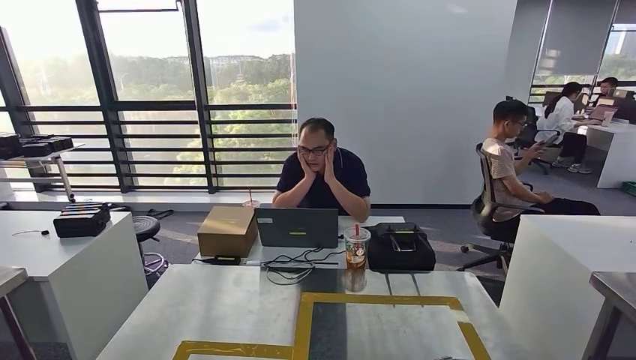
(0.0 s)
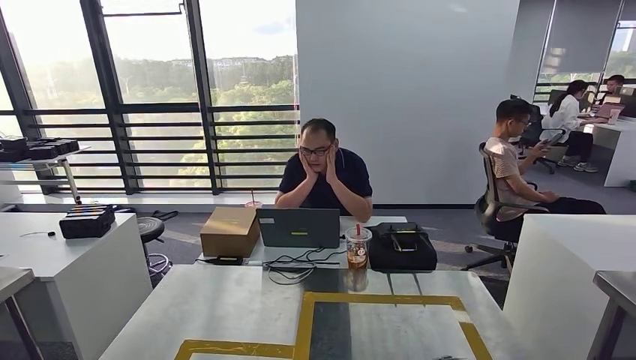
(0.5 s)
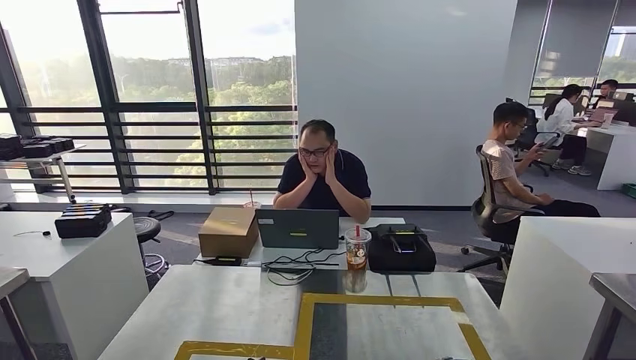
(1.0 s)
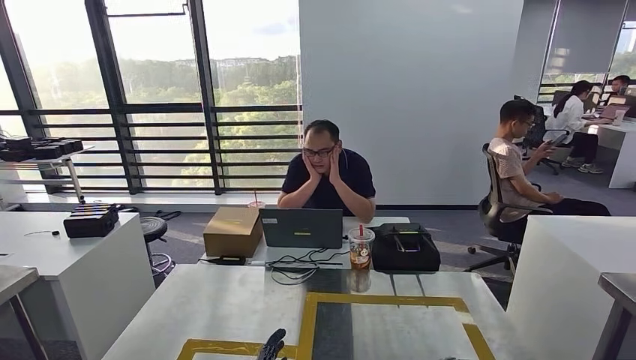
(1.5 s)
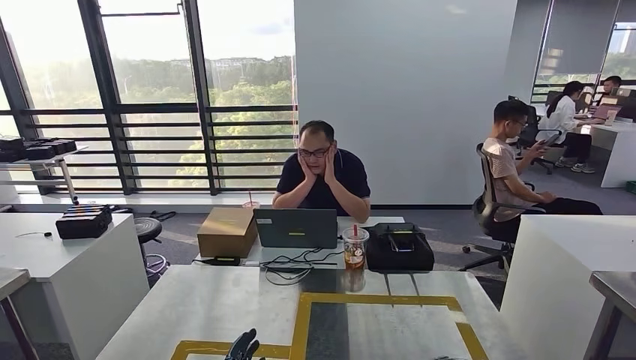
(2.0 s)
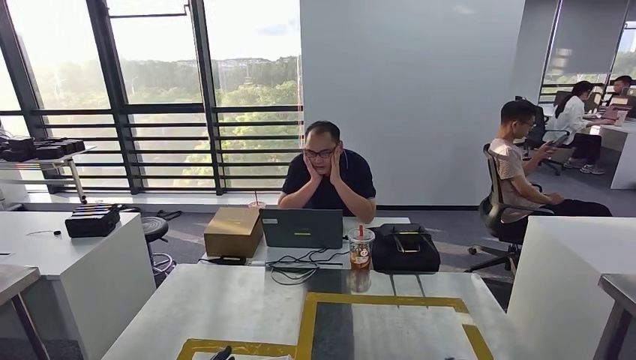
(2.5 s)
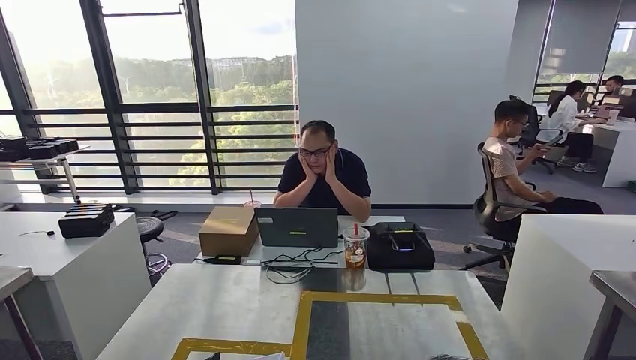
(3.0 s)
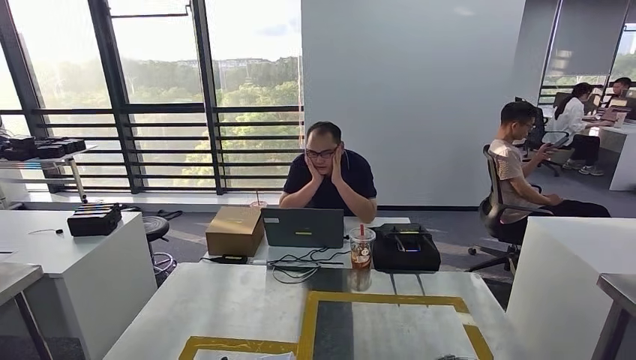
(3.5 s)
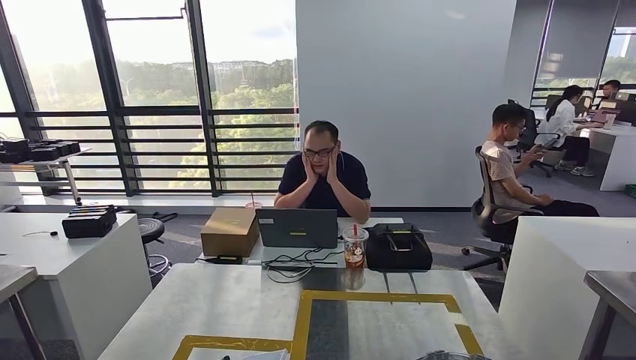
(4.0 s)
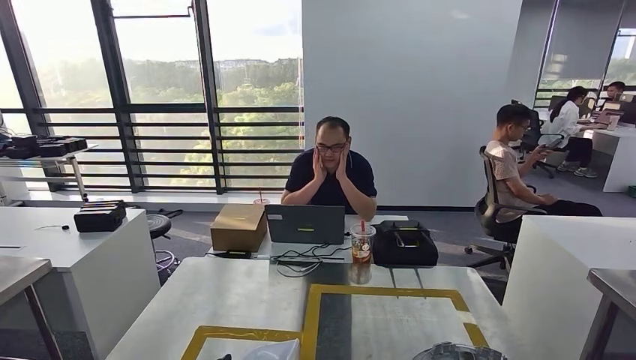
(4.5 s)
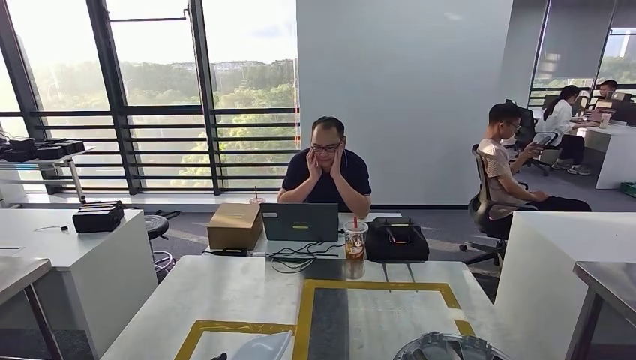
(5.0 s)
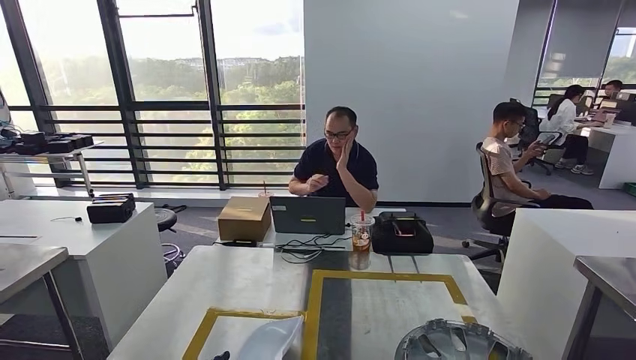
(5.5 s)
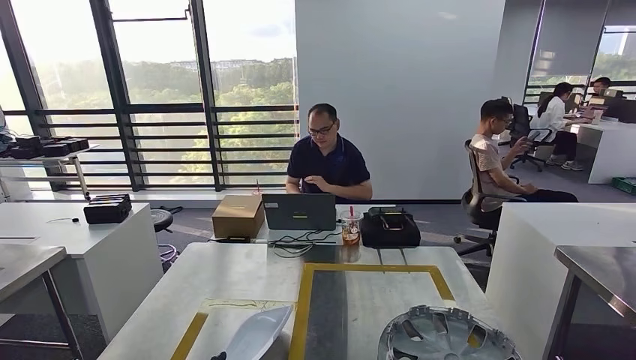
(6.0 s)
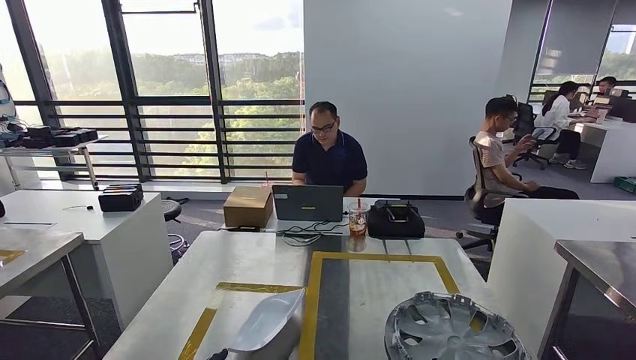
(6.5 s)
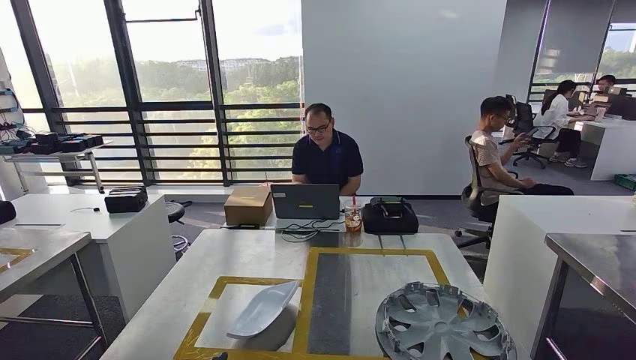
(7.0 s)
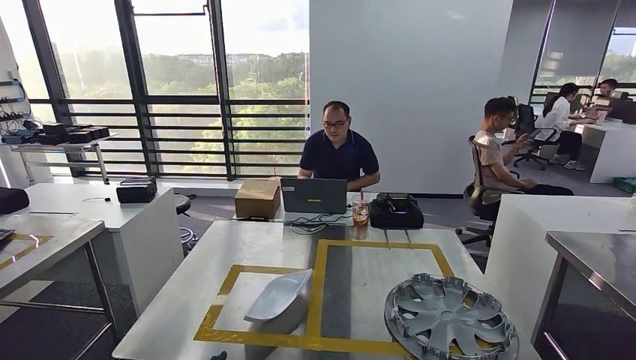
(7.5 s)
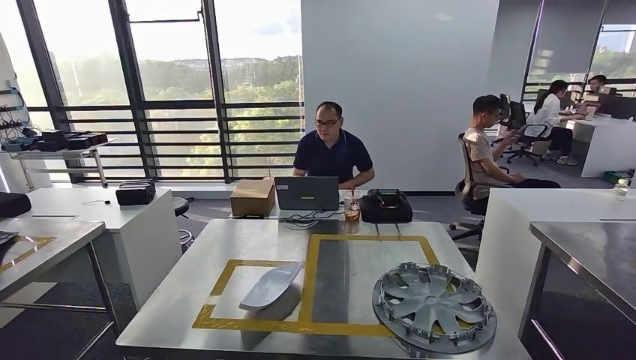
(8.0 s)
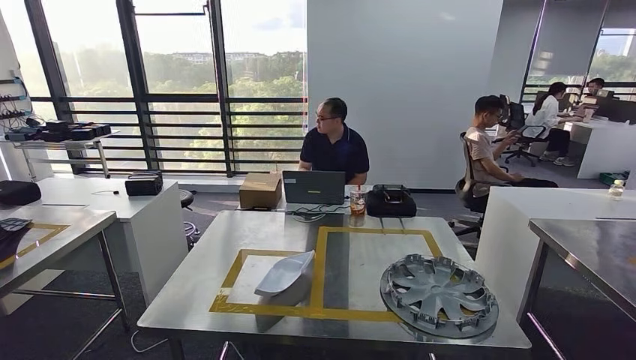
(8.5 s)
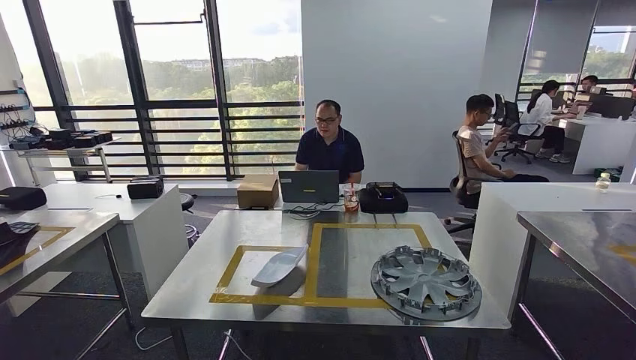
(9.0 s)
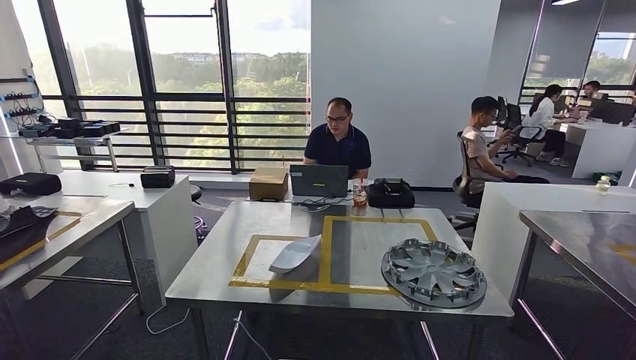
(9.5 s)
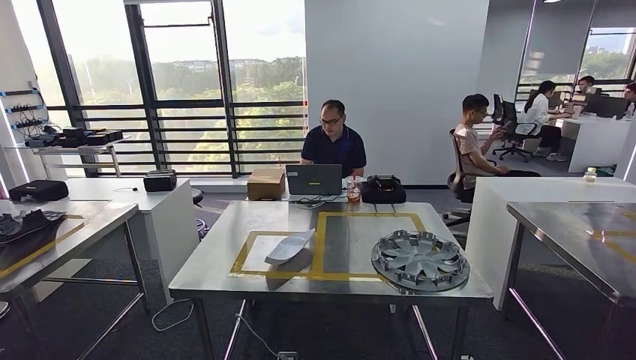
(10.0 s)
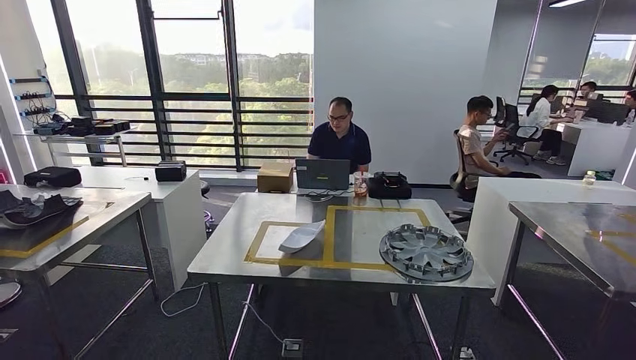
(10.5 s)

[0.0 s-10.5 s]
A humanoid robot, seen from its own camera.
Step, 0.0 to 4.0 s: Insert the small parts into the corresponding slots on the workbench.
0.0 to 2.0 s: The left hand goes some 15 cm upward, backward and to the right. The right hand ends up about 5 cm from where it was.
2.0 to 4.0 s: The left hand is displaced to the left by approximately 5 cm.

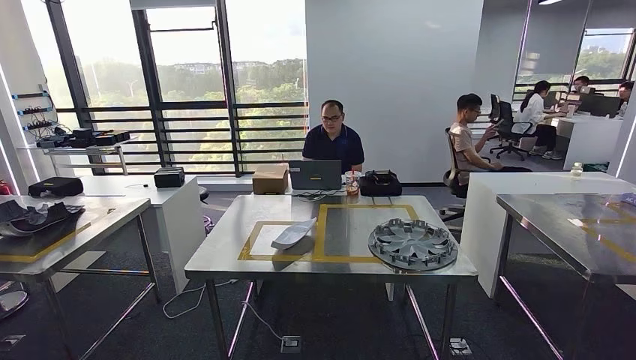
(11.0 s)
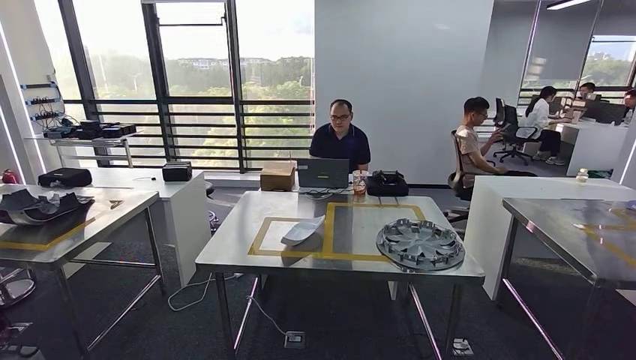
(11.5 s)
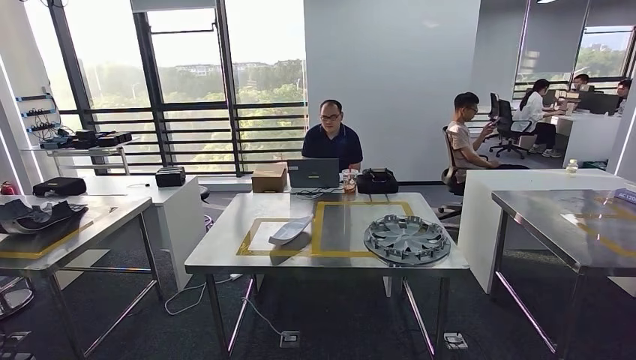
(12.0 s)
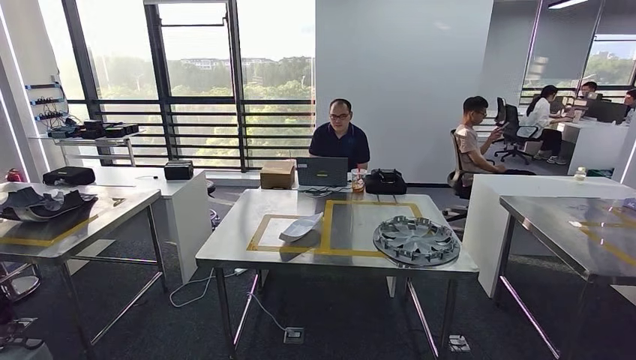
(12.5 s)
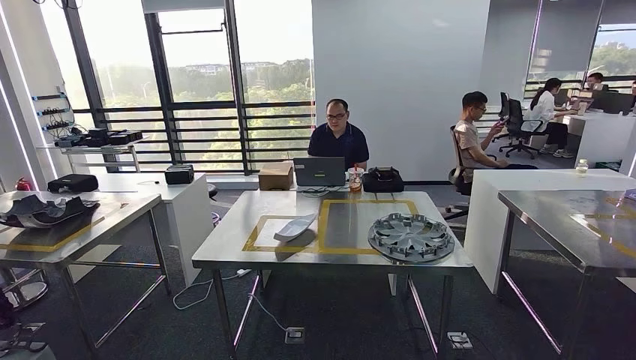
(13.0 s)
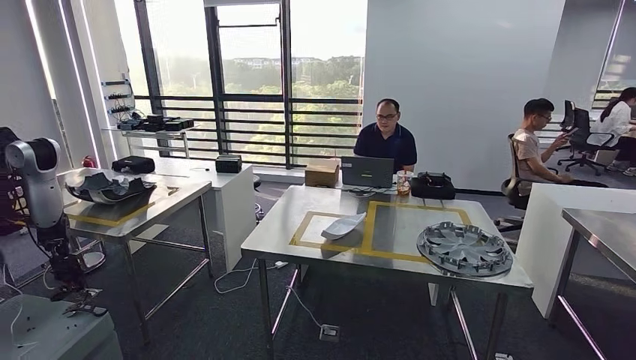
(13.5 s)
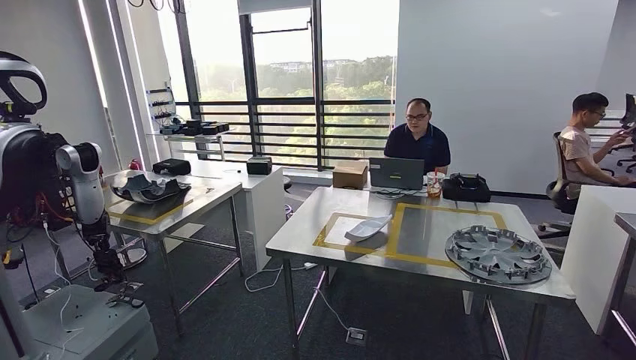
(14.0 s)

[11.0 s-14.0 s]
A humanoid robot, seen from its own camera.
Step, 11.0 to 14.0 s: Return to the initial position at the workbench.

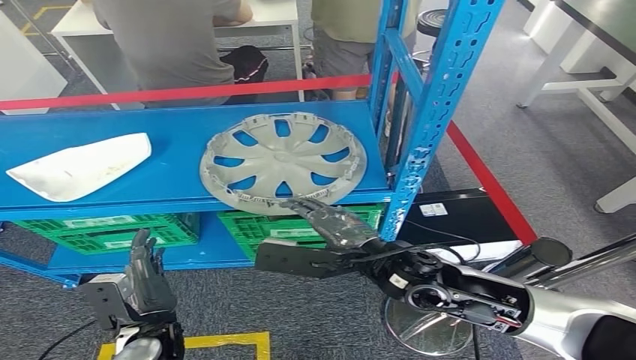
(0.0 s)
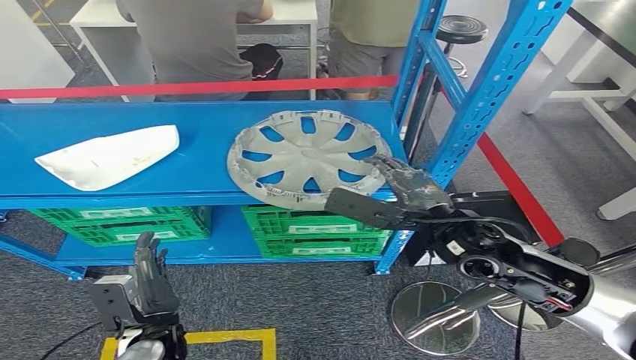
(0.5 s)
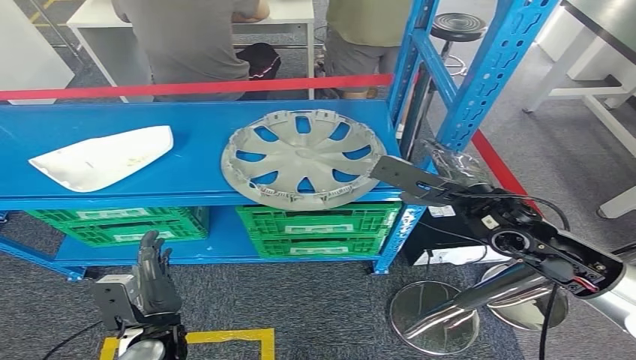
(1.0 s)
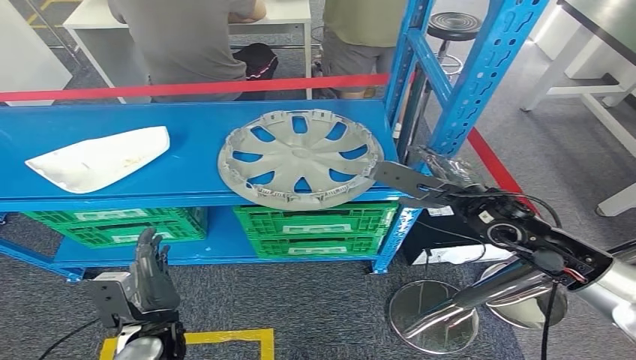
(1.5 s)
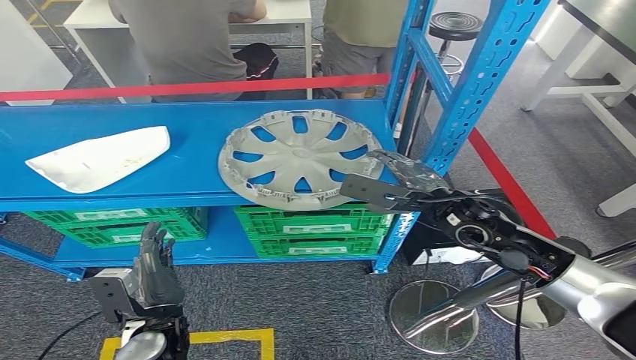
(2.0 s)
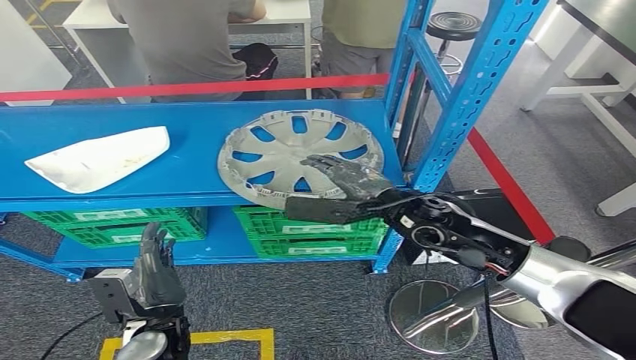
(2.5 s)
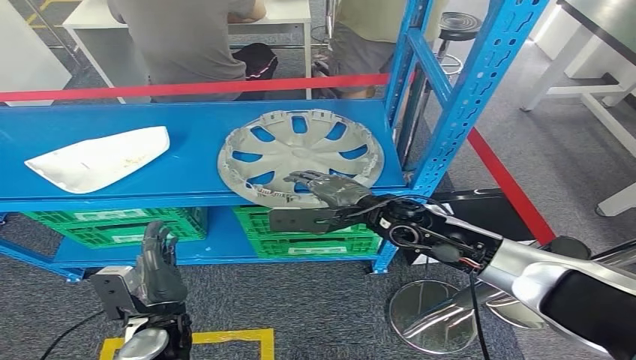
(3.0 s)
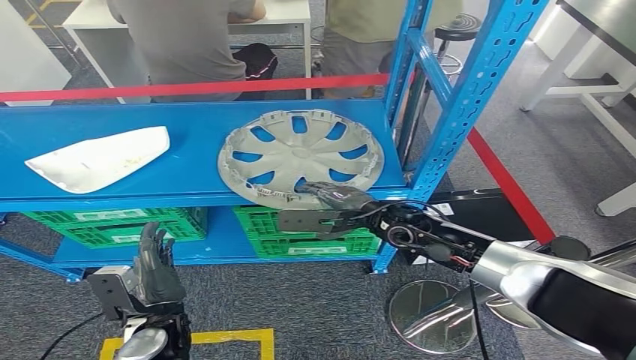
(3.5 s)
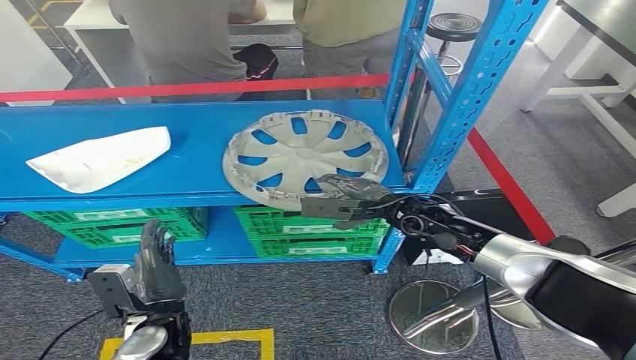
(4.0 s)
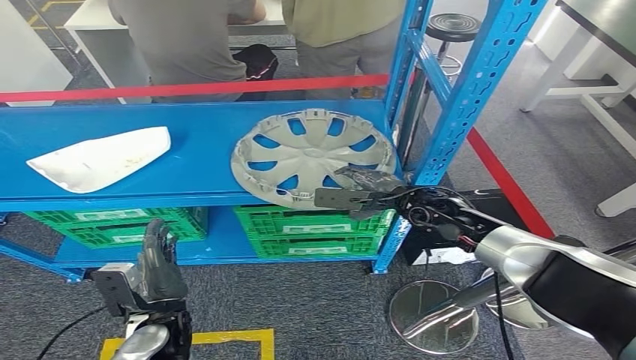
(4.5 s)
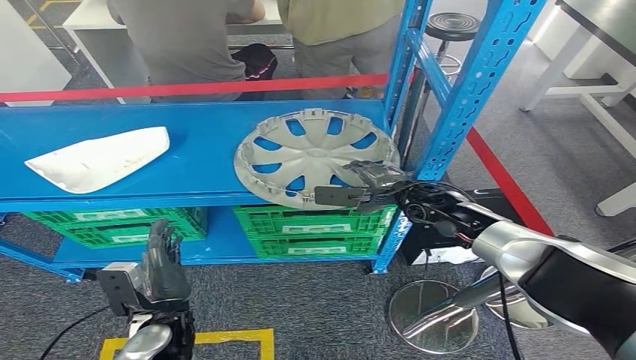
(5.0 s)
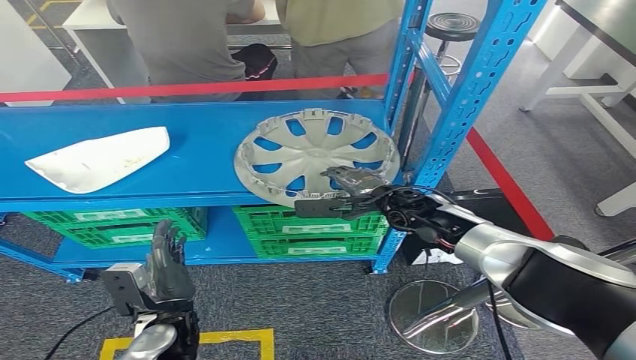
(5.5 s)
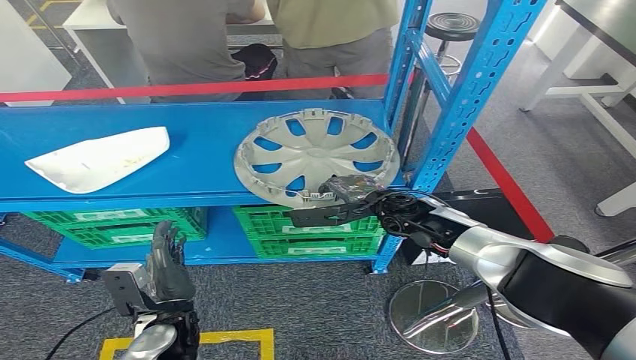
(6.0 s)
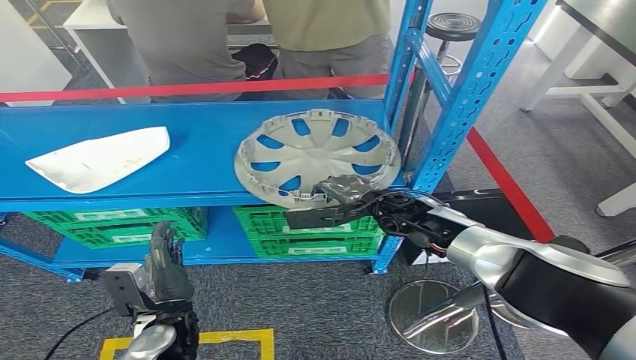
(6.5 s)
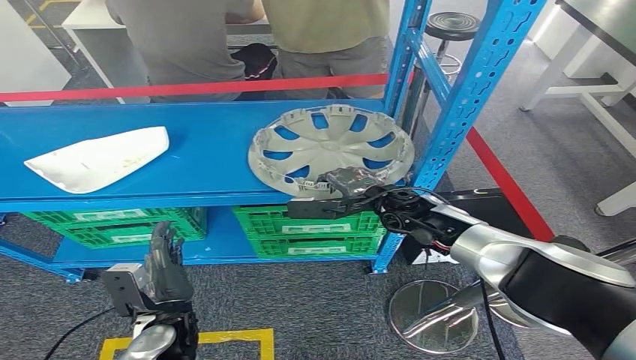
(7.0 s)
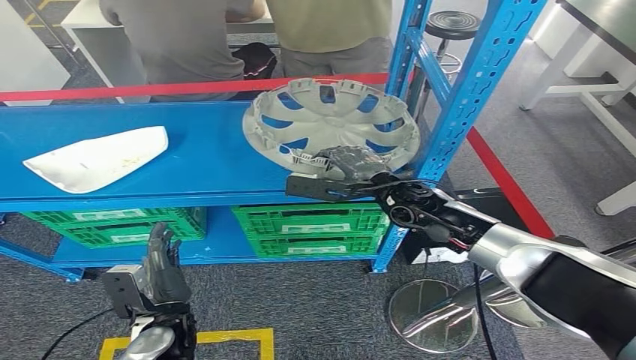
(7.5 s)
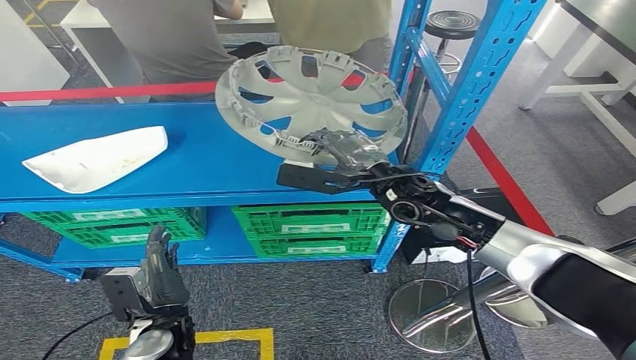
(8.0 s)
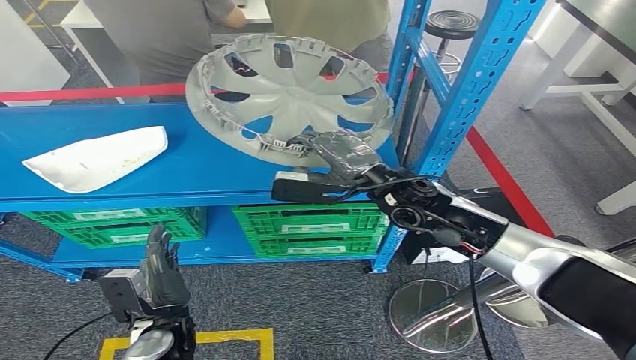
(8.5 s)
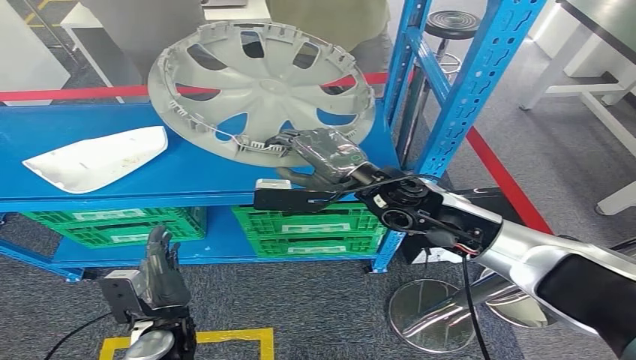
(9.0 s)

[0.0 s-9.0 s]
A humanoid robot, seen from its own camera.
2.0 to 4.5 s: The right hand travels forward and downward by roughly 10 cm, and moves roughly 10 cm to the left and comes back.
4.5 to 7.0 s: The right hand moves roughly 5 cm.
